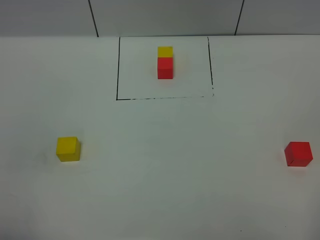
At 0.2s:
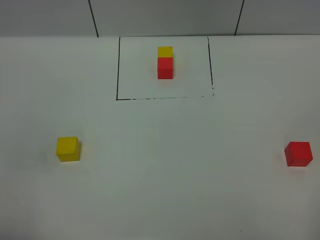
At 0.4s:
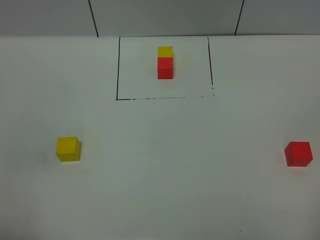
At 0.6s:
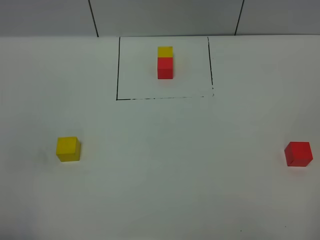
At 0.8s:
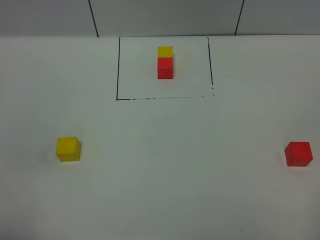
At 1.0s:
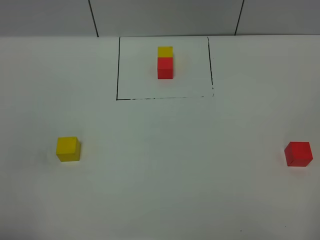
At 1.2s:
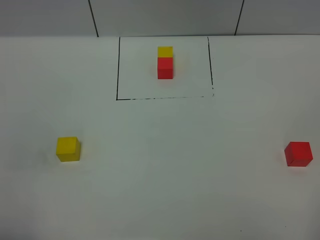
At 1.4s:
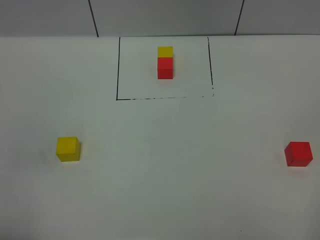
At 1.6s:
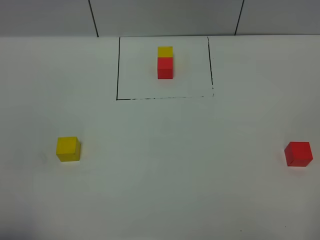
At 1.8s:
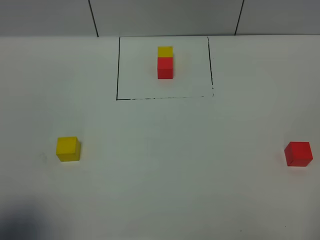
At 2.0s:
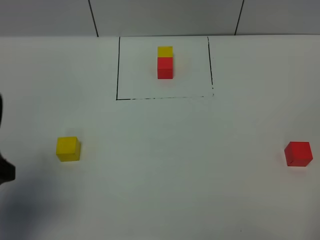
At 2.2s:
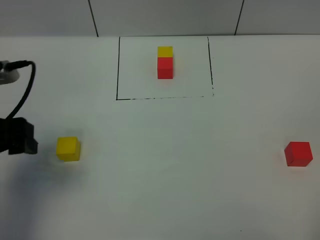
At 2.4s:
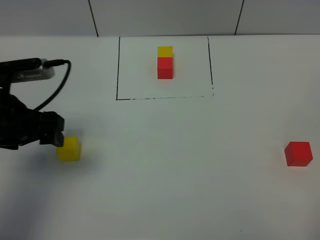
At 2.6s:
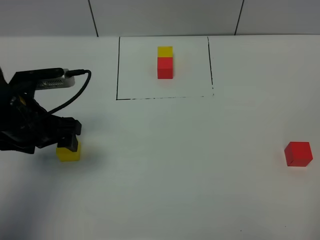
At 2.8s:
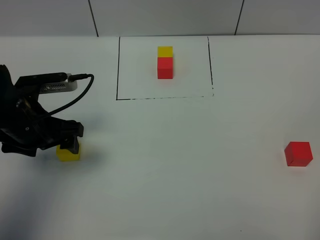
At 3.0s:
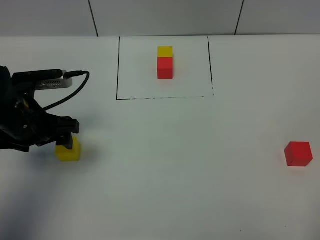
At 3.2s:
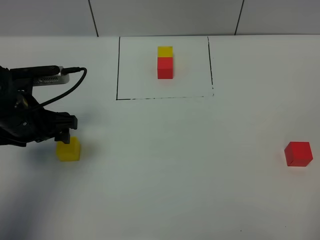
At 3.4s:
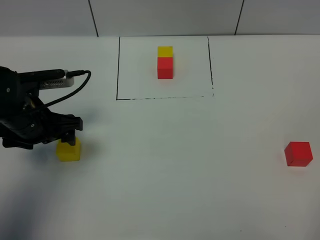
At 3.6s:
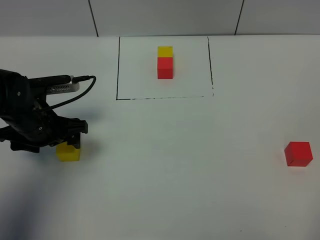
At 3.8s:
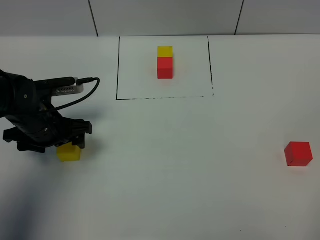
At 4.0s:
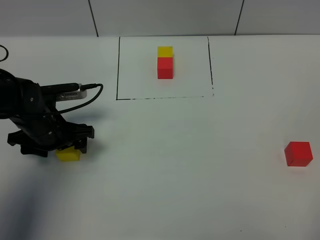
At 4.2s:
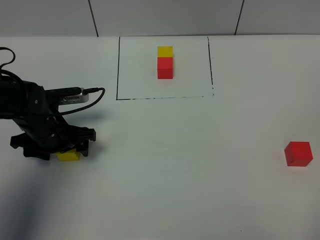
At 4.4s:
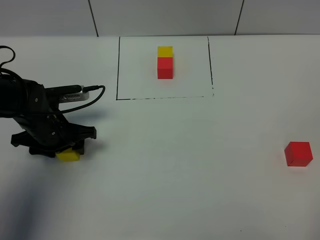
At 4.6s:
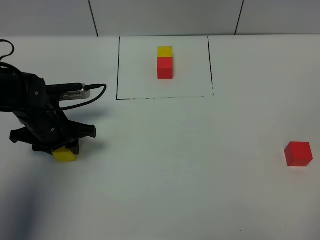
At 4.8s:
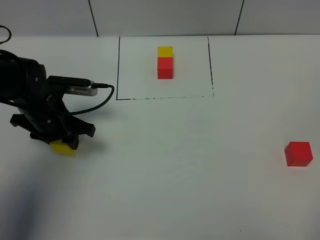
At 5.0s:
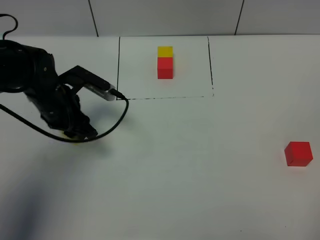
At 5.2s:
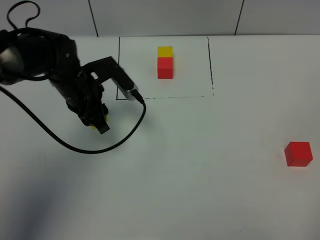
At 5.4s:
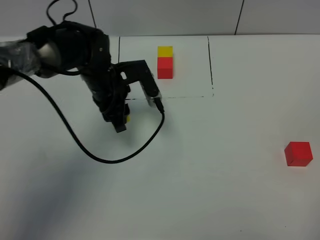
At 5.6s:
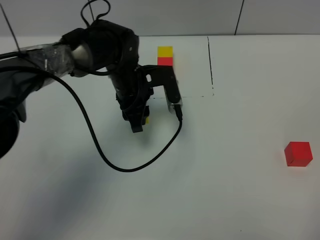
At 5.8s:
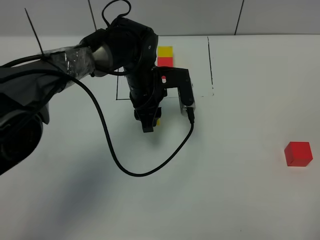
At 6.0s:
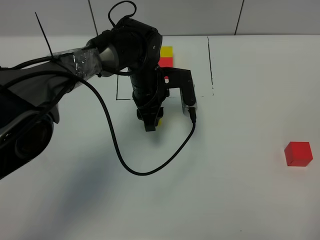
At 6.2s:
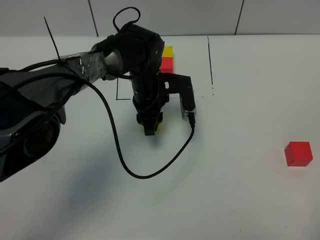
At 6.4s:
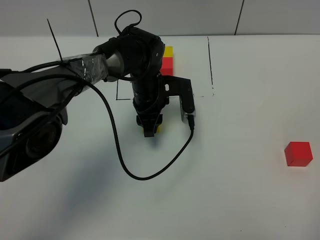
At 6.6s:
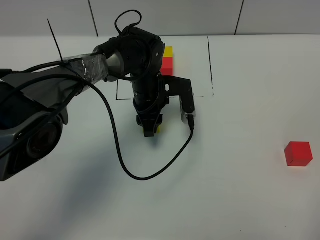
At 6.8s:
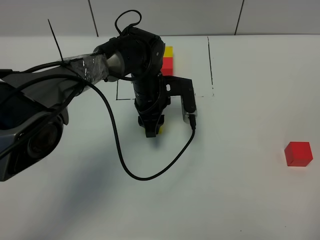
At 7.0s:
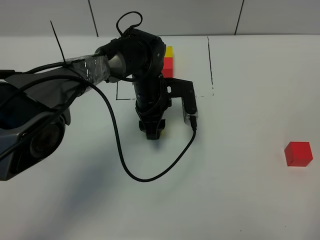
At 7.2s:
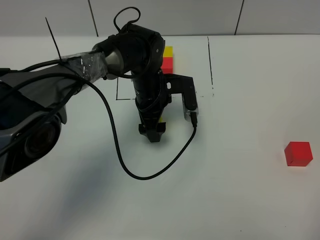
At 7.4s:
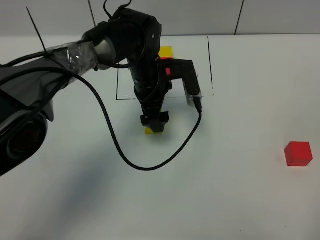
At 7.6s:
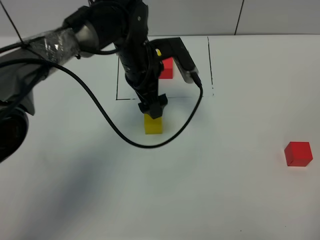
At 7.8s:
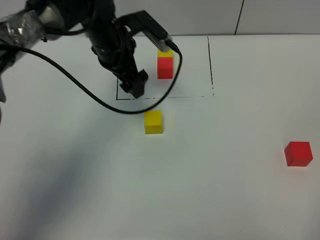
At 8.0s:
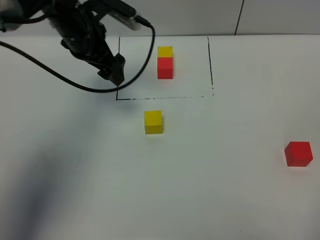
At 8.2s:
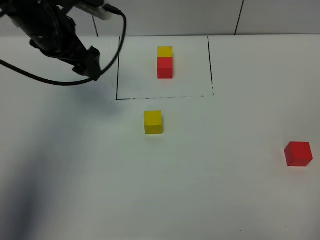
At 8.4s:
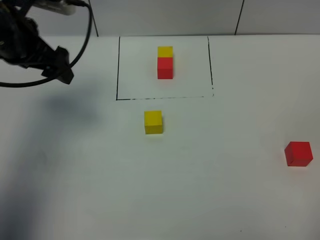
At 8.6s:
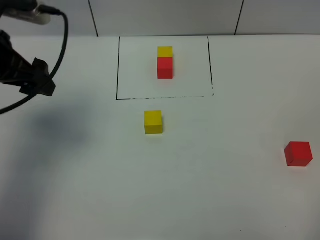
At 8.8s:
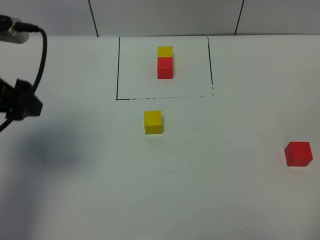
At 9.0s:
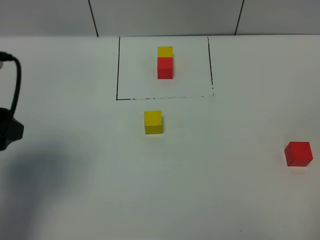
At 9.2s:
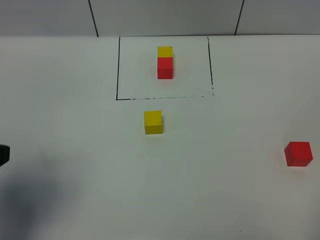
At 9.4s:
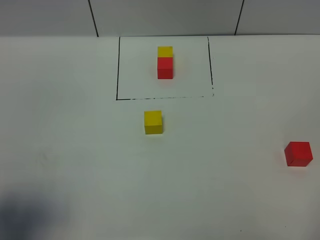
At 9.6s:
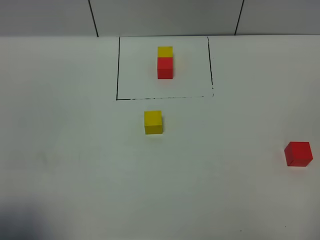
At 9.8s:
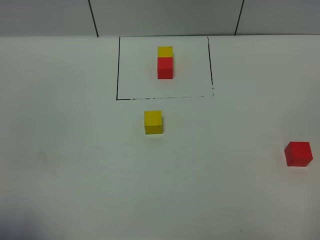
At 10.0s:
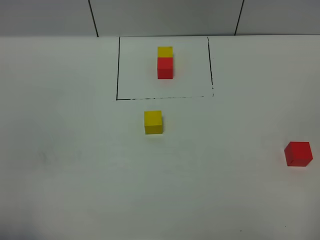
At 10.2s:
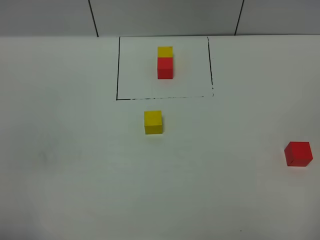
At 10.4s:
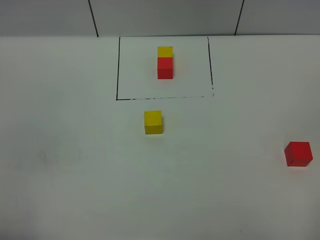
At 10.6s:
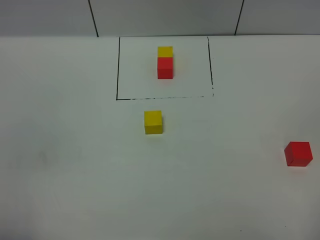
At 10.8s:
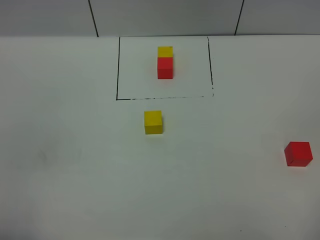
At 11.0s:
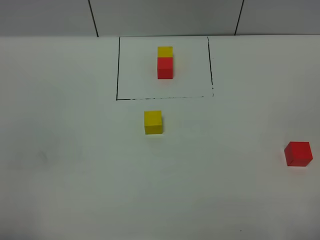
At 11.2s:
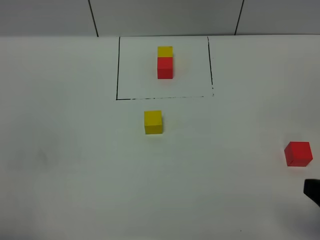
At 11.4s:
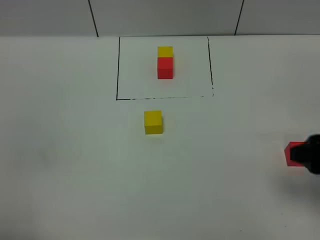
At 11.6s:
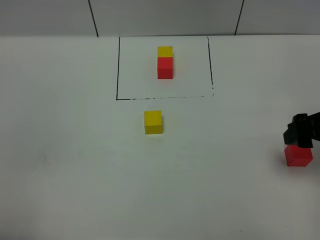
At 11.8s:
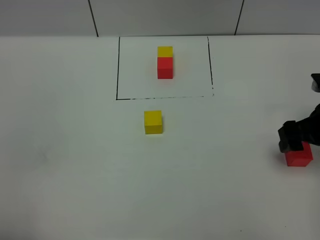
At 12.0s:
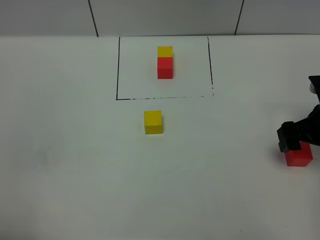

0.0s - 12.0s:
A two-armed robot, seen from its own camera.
Task of the whole recording: According to the building block template in front, assemble the scattered blocks together.
Step, 2.0s - 7.4s: Put the yellow cube in the center of the table.
1.6s - 3.0s: The left gripper travels forward by about 25 cm.
3.0s - 4.4s: The left gripper moves downward, about 10 cm, and closes its fingers.
4.4s - 6.0s: The left gripper shifts roughly 20 cm to the right and forward.
6.0s - 7.6s: The left gripper is displaced upward by roughly 5 cm, and opens its fingers.
7.6s - 9.0s: The left gripper goes some 35 cm to the left, backward and upward.
9.0s - 10.4s: The left gripper travels backward by about 20 cm.
10.4s - 12.0s: The right gripper travels forward by approximately 30 cm.

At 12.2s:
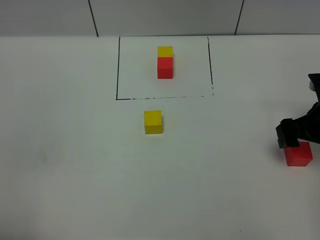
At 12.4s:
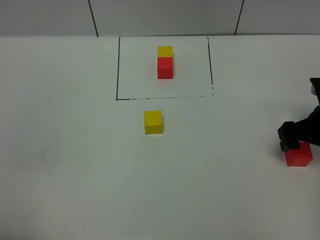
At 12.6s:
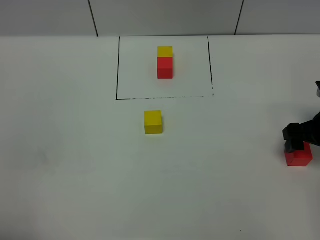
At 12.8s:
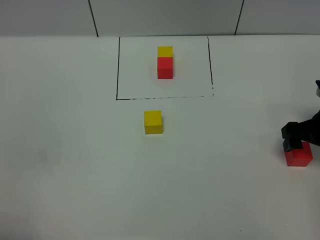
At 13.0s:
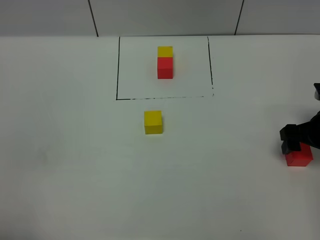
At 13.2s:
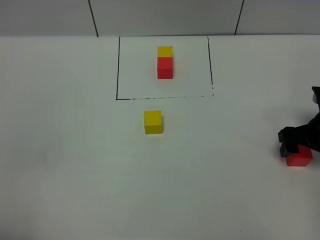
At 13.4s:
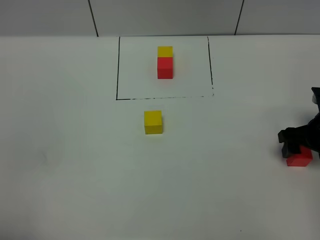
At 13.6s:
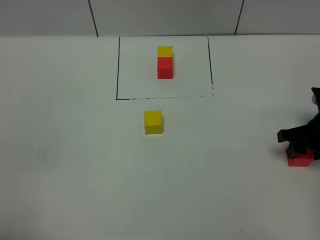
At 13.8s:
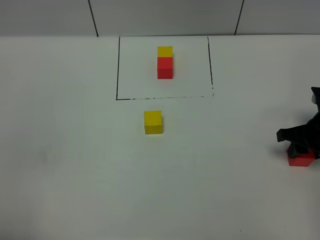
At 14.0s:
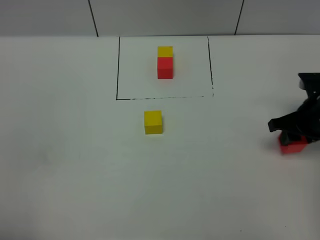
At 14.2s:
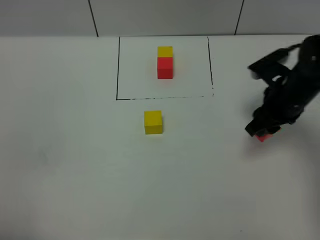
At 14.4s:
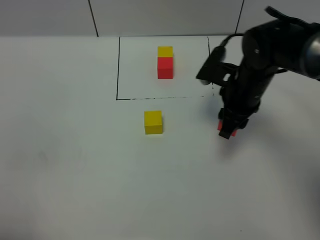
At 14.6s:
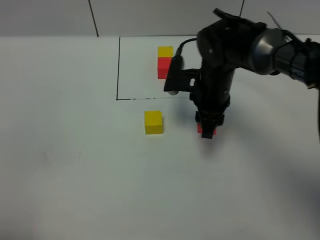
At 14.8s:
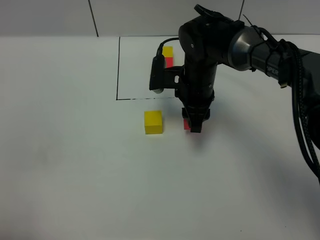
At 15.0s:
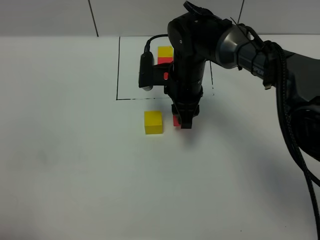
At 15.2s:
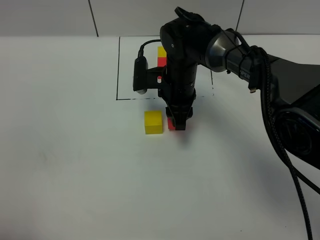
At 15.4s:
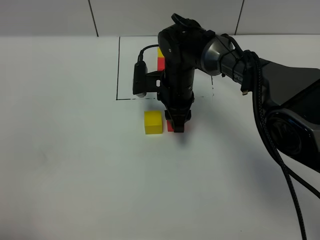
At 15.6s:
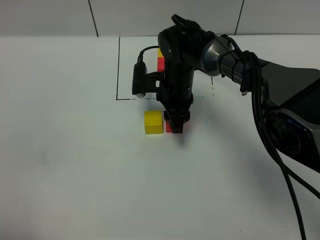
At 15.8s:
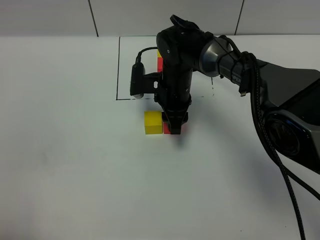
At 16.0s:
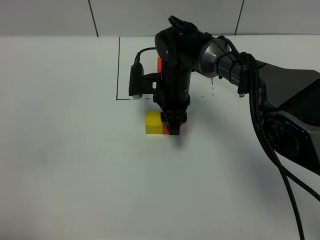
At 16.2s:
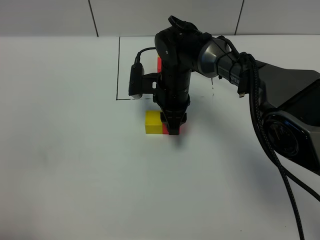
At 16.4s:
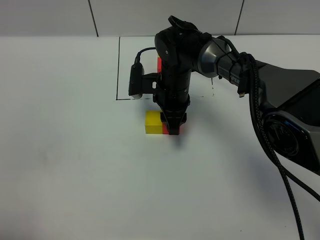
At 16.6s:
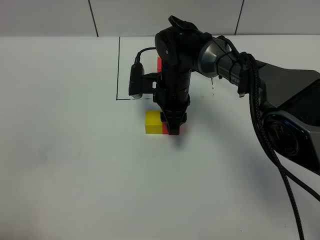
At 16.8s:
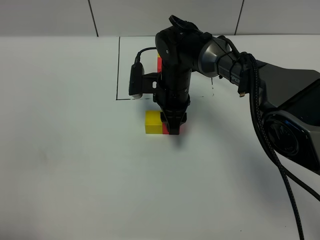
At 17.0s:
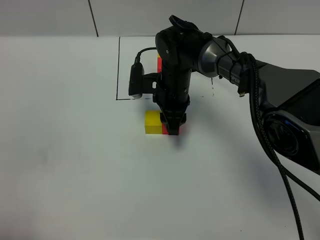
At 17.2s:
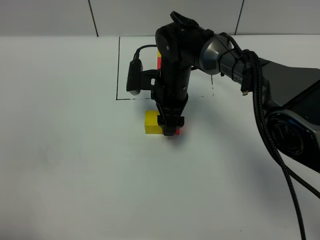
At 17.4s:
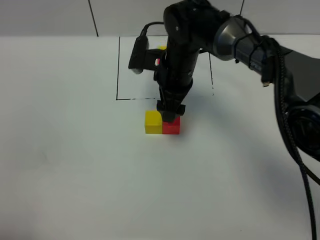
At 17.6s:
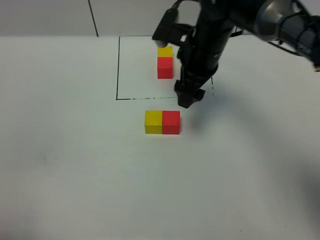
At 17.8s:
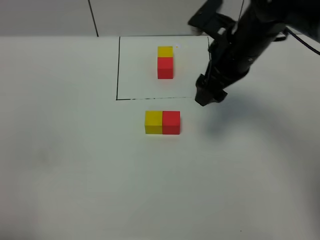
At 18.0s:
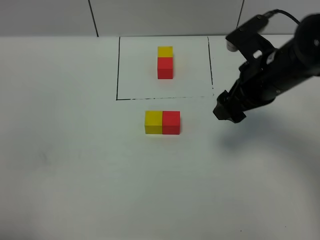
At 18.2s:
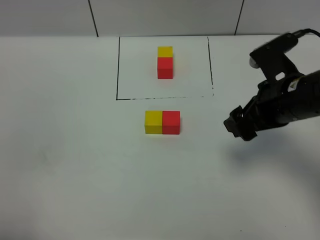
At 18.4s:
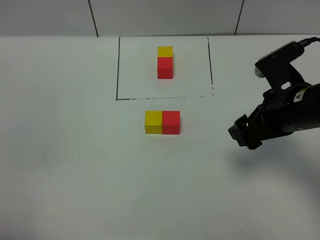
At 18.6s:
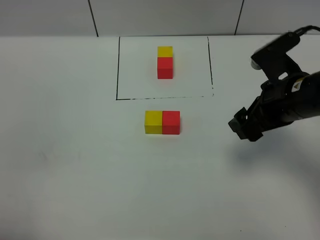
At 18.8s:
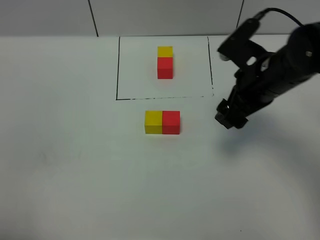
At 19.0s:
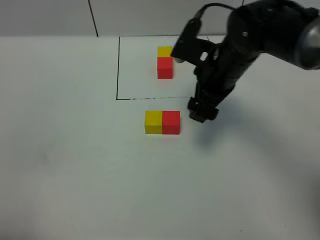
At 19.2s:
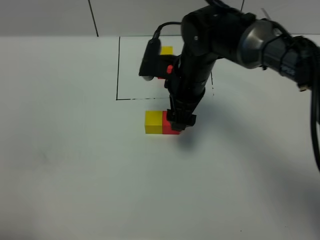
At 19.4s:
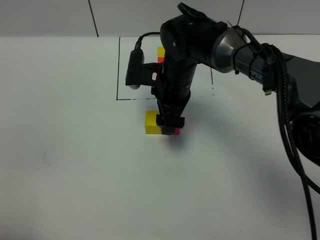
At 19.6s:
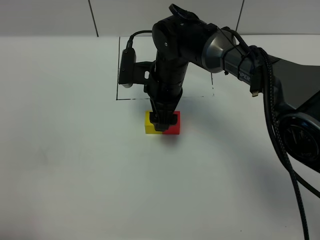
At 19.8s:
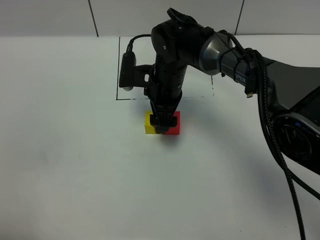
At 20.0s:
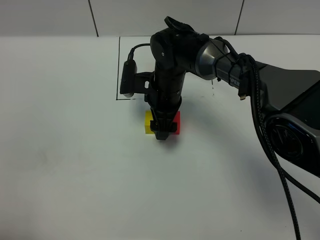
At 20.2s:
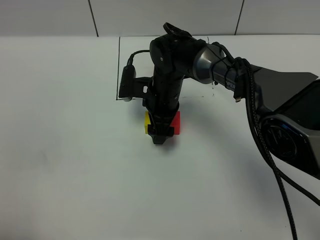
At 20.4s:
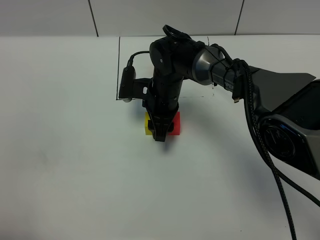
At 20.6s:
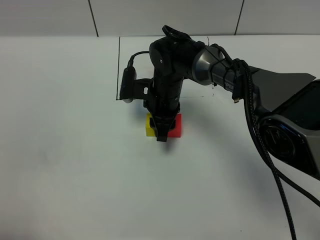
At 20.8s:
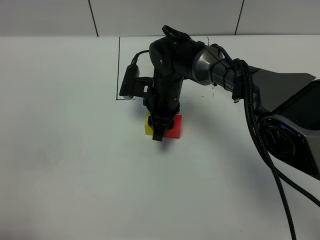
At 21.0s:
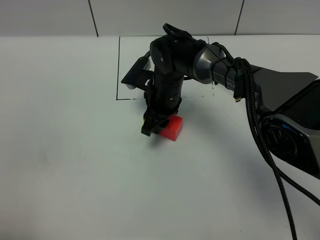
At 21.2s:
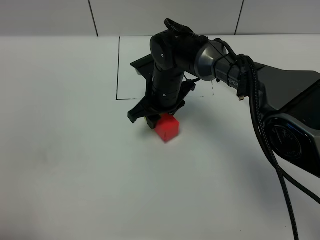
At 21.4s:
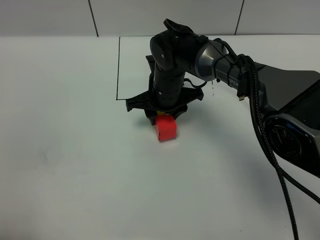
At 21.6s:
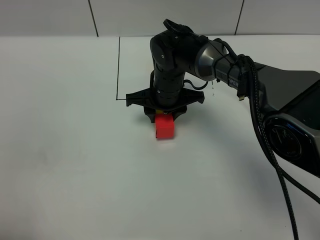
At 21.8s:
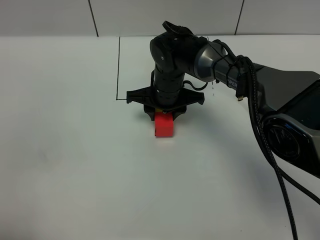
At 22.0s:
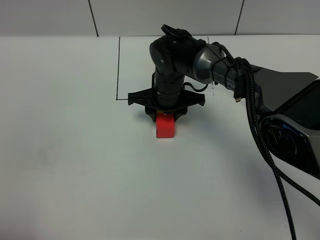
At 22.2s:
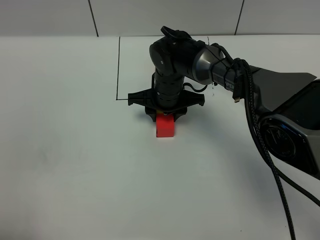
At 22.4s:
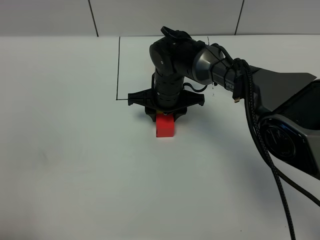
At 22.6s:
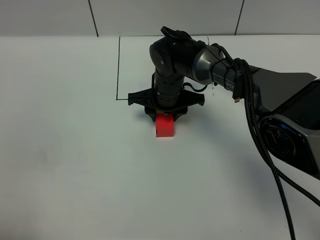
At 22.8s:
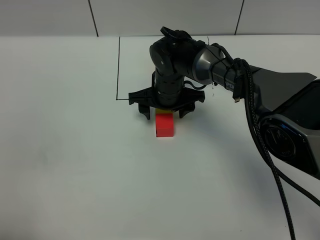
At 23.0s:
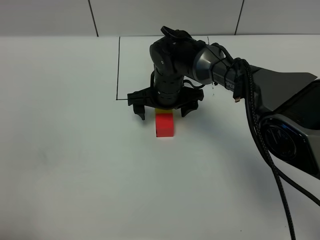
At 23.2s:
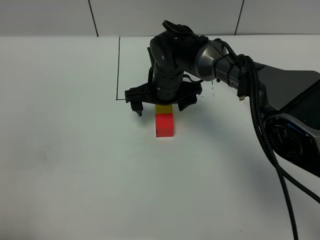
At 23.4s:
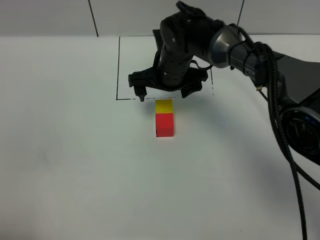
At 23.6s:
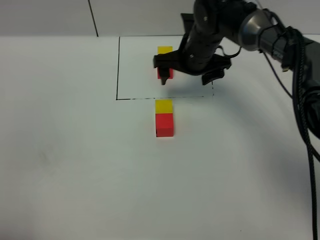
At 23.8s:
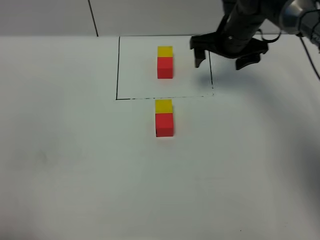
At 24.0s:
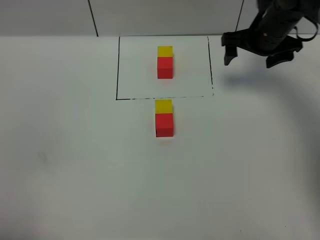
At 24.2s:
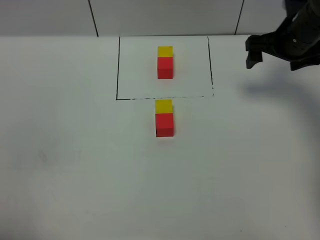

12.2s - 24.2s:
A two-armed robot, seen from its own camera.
Task of the whole recording: According to the building block template in front, assemble the scattered blocks together.
Step, 12.2s - 17.2s: Put the red cube on the right of the yellow cube.
Step, 17.4s - 23.0s: Adjust the pose of the building blocks.
12.2s - 13.8s: The right gripper closes its fingers.
13.8s - 15.2s: The right gripper heads to the left, covering some 30 cm.
15.2s - 16.6s: The grippers stay close to where they were, moving slightly.
16.6s - 18.2s: The right gripper is displaced to the right, backward and upward by some 25 cm, and opens up.
18.2s - 19.8s: The right gripper moves to the left, forward and downward, some 25 cm.
19.8s - 21.2s: The right gripper closes up.
22.6s - 24.2s: The right gripper moves to the right and upward, approximately 25 cm, and opens up.
